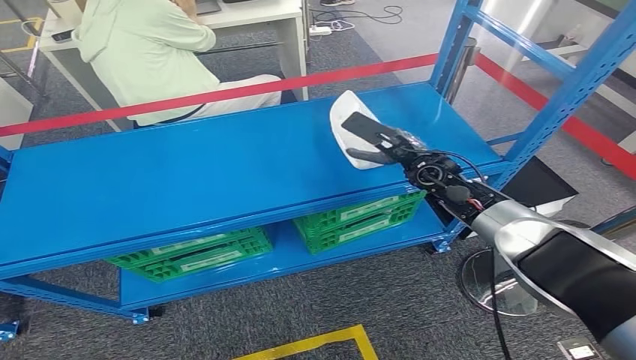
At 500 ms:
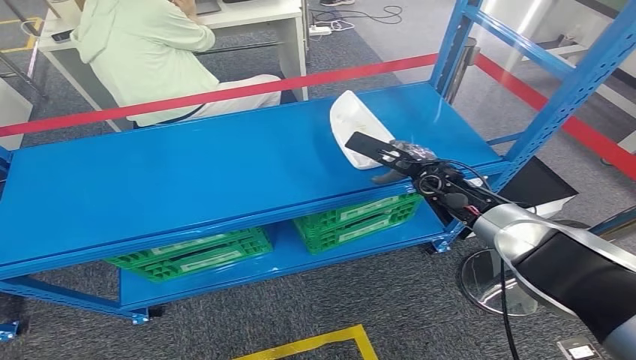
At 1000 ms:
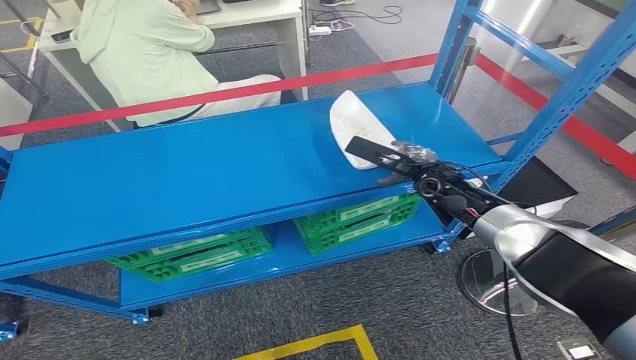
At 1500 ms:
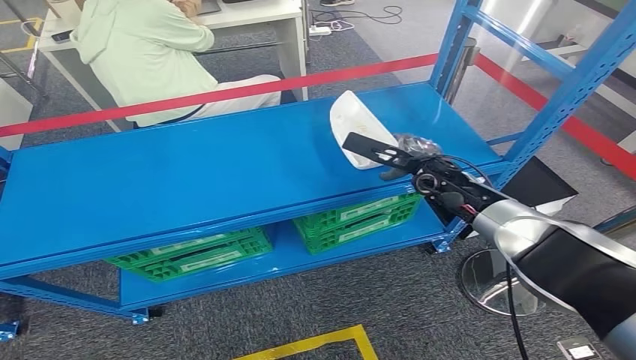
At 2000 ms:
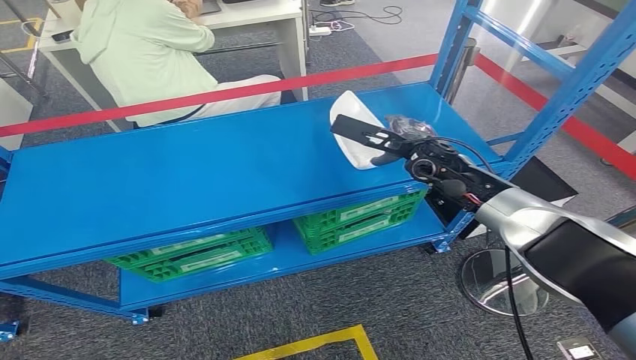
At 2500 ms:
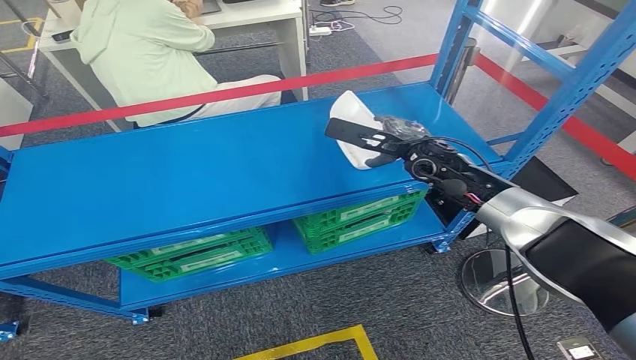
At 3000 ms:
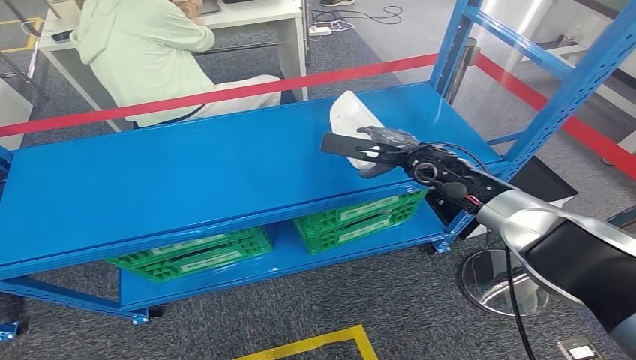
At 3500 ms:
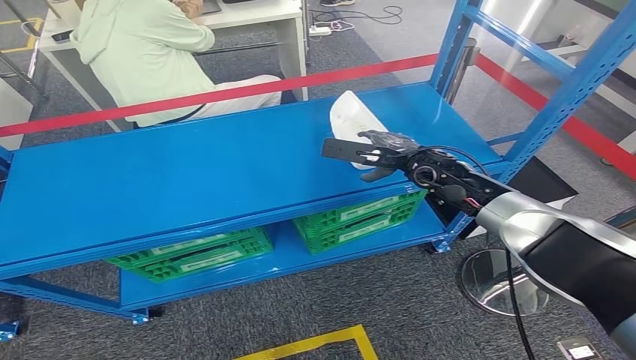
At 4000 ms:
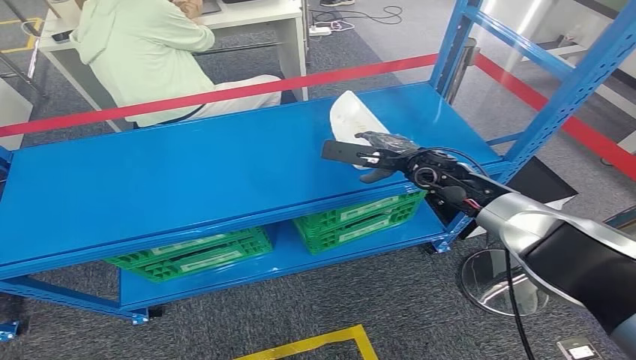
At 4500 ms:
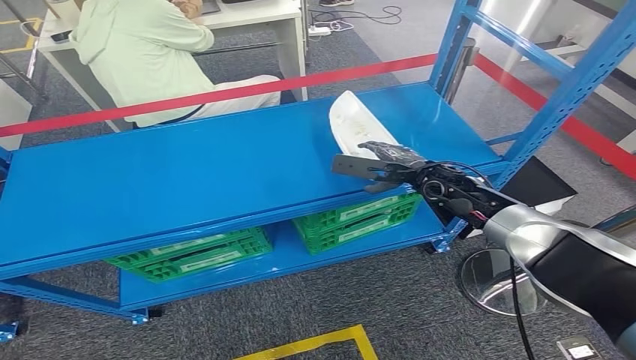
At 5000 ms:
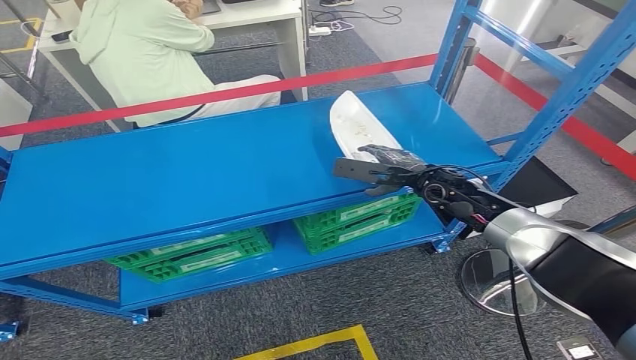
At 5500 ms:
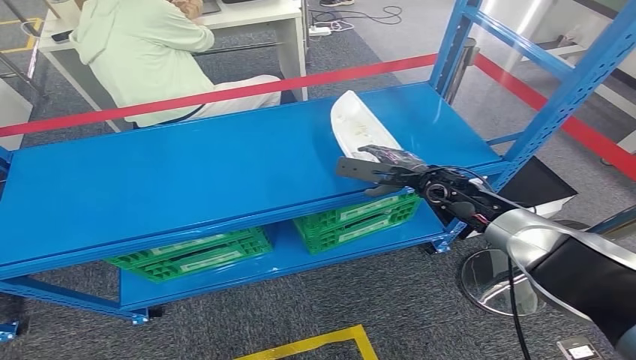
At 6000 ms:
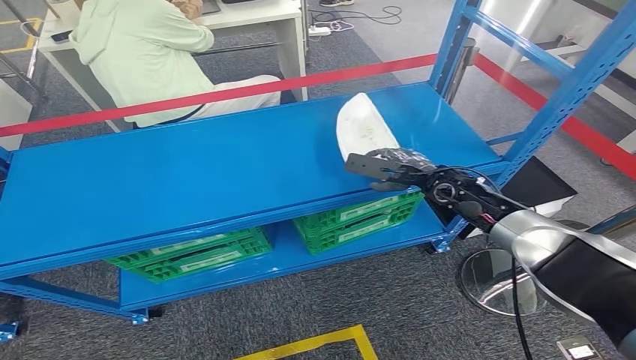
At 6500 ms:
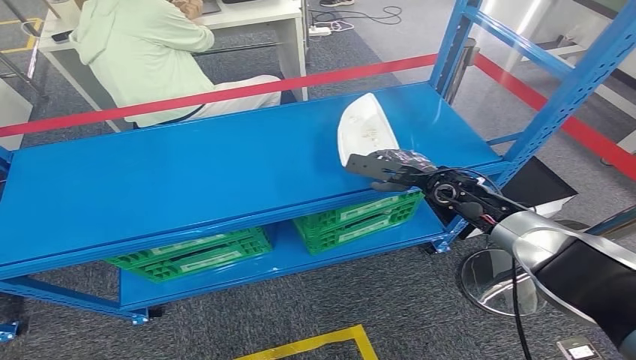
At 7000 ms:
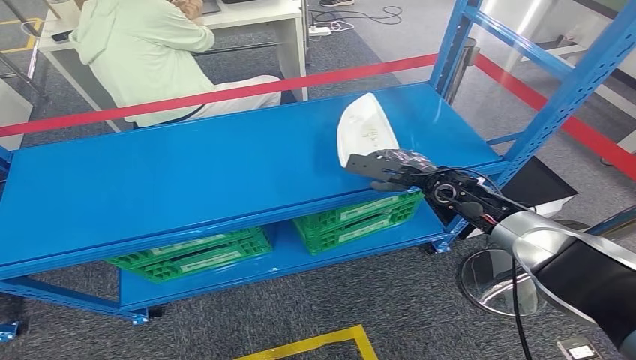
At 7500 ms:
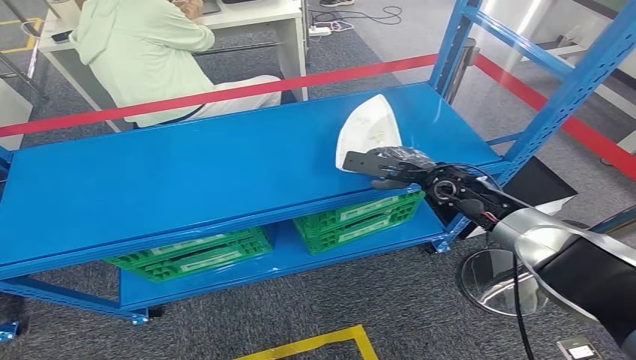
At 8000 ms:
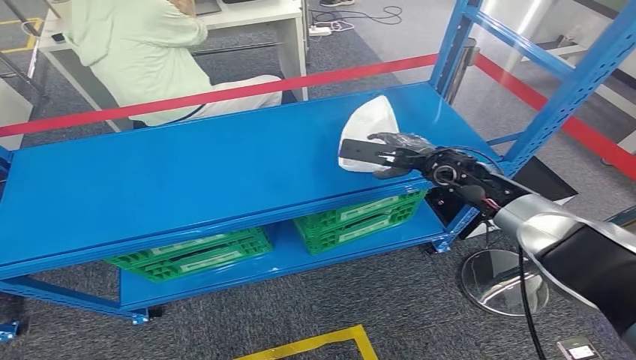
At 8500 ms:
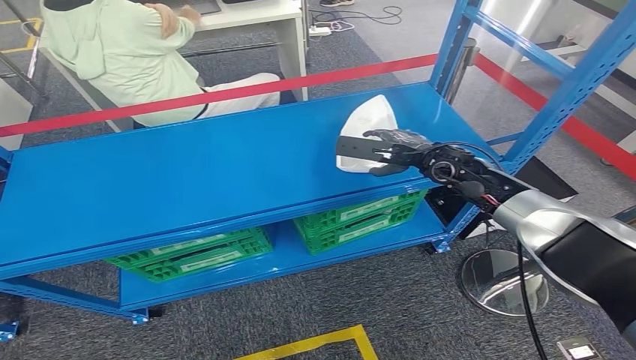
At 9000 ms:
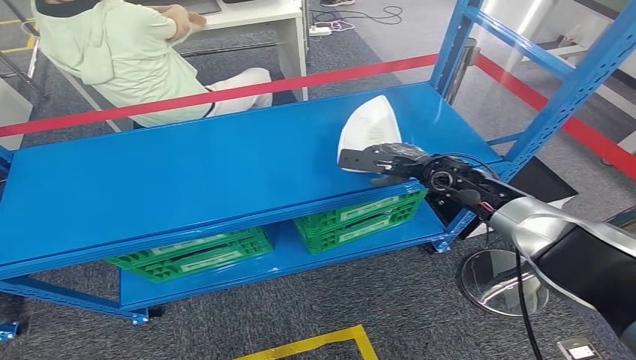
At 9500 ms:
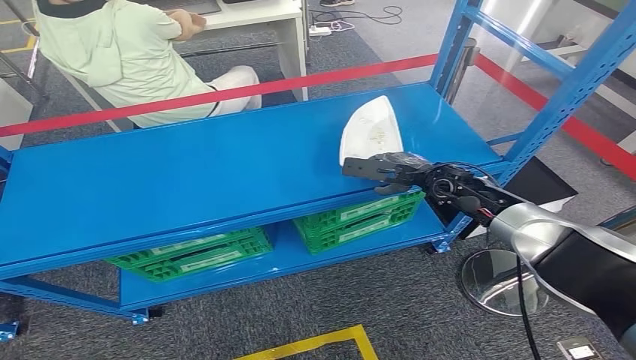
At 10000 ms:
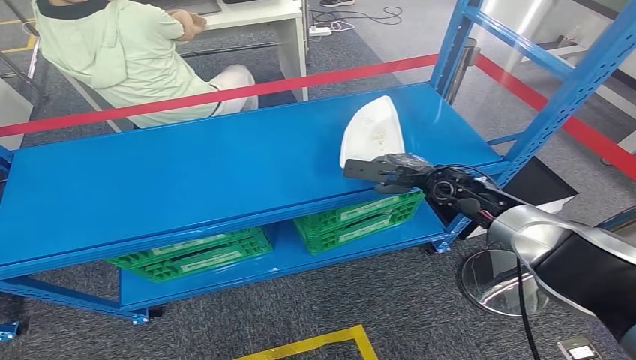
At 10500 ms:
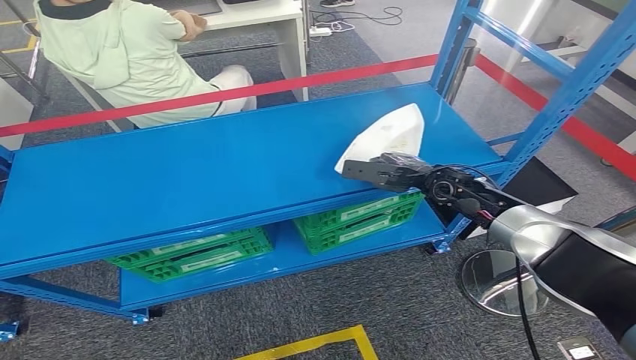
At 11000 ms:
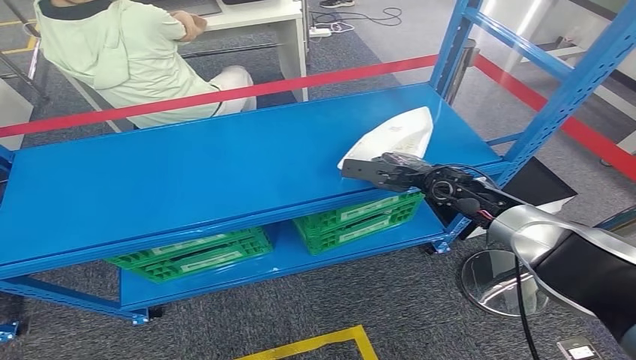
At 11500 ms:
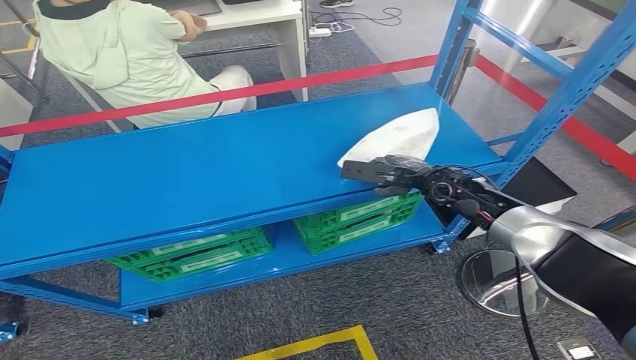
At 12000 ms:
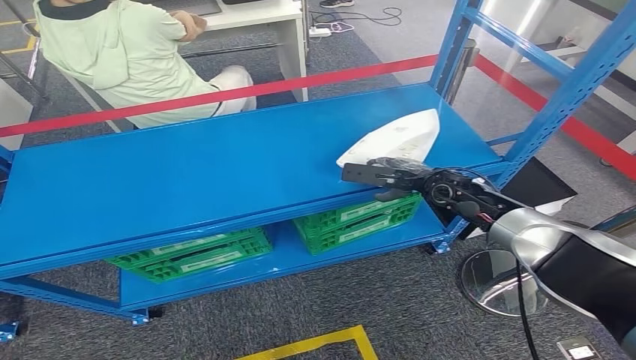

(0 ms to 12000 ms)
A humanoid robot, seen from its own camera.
2000 ms - 4000 ms: The hands move only a little.
4000 ms - 6000 ms: The right hand ends up roughly 5 cm from where it was.
6000 ms - 10000 ms: The hands move only a little.
10000 ms - 12000 ms: Both hands stay about where they are.

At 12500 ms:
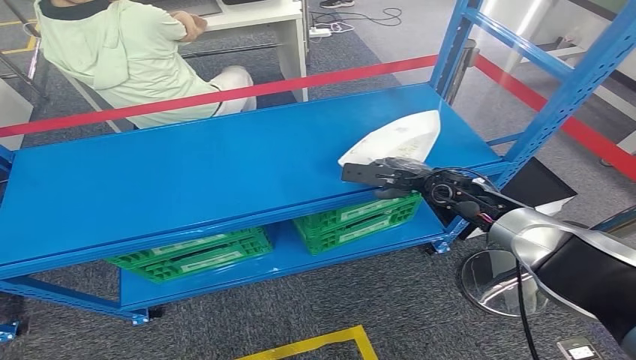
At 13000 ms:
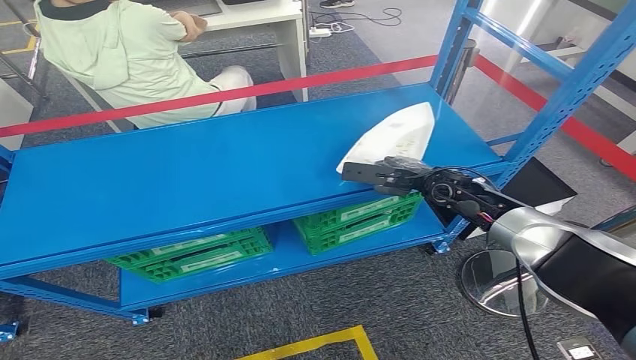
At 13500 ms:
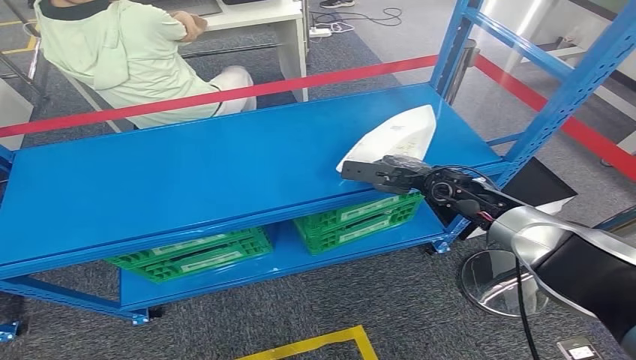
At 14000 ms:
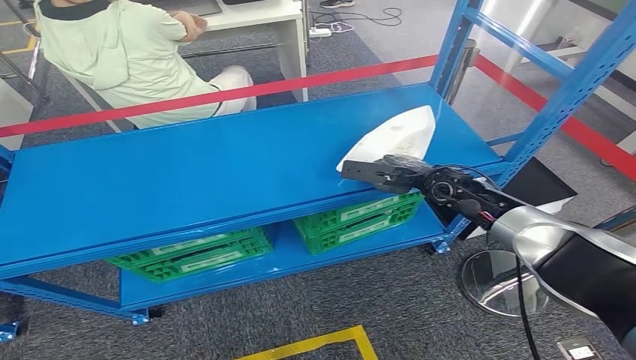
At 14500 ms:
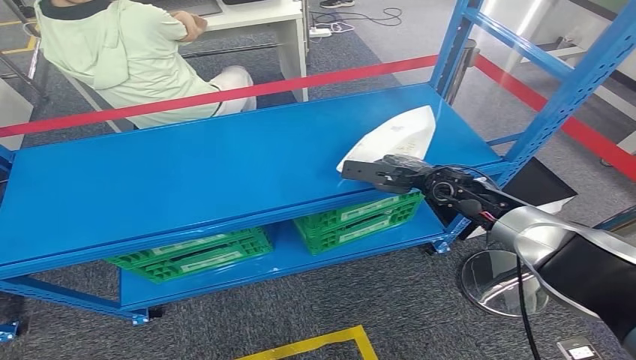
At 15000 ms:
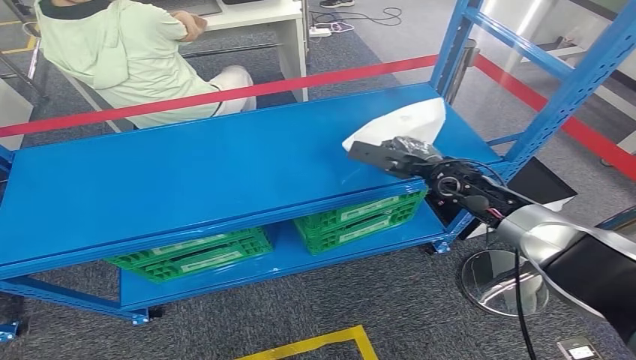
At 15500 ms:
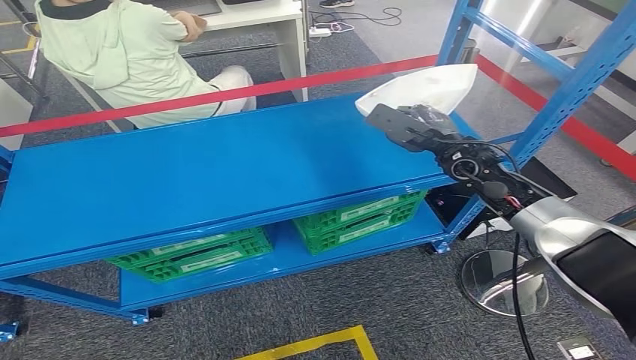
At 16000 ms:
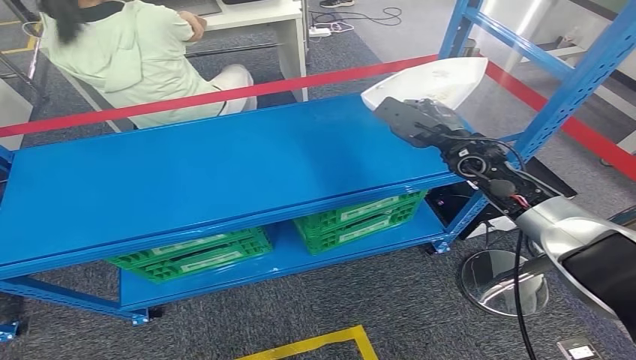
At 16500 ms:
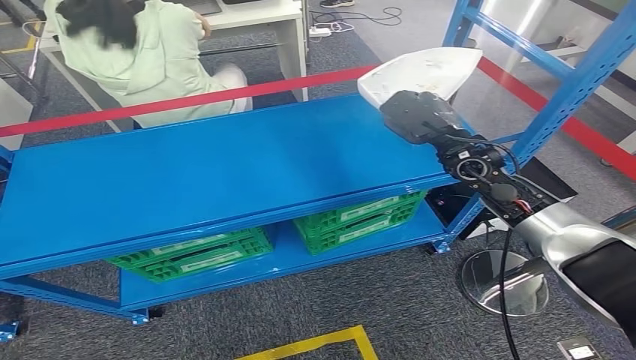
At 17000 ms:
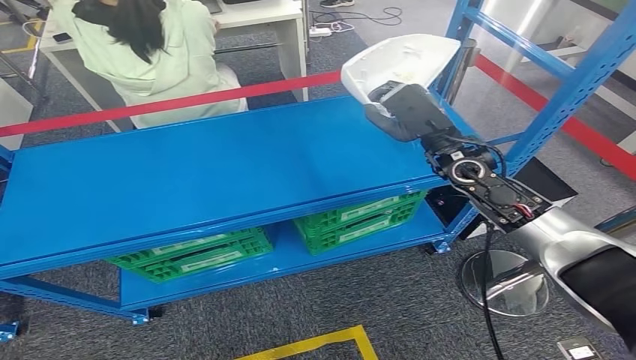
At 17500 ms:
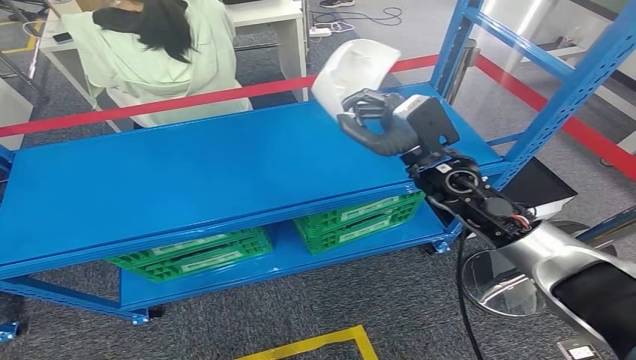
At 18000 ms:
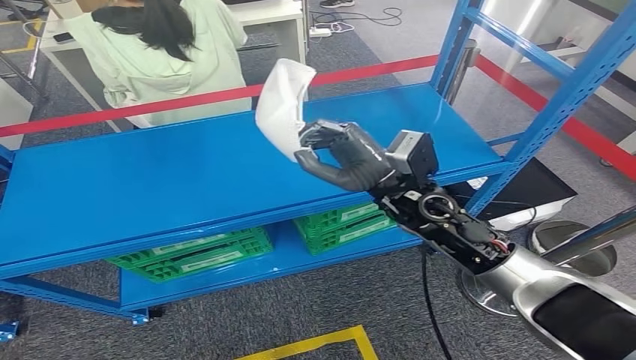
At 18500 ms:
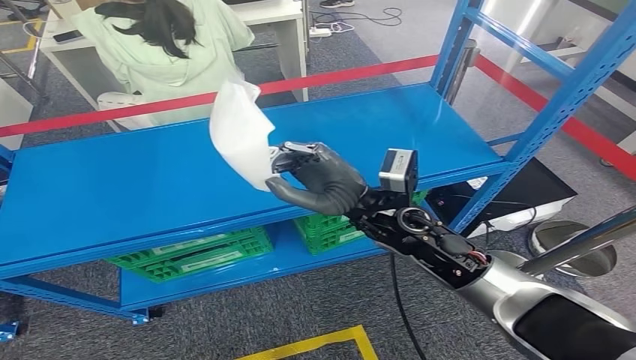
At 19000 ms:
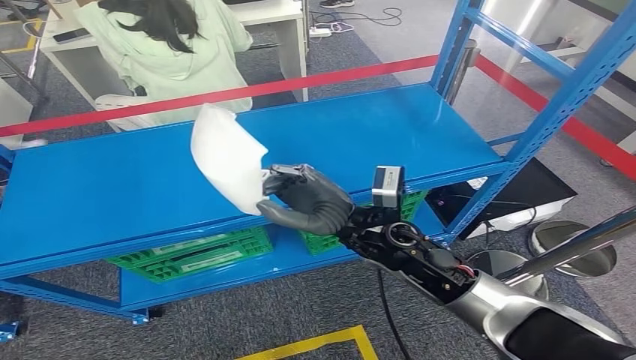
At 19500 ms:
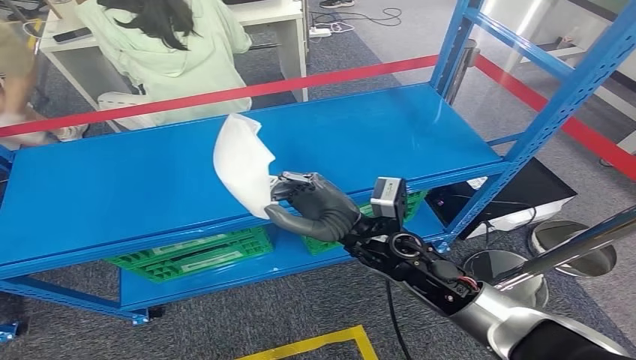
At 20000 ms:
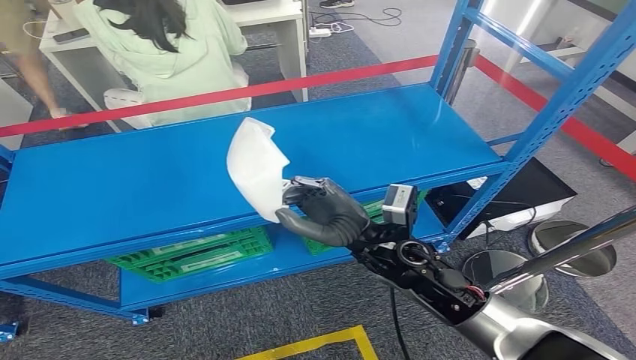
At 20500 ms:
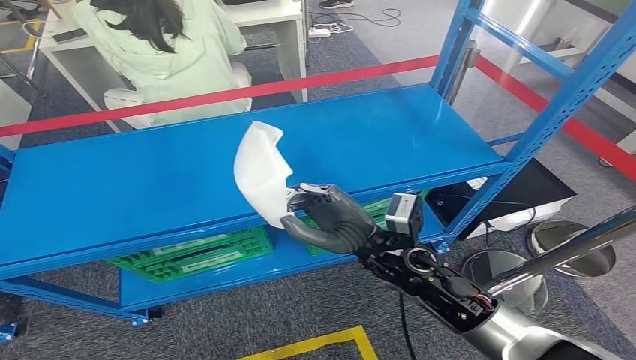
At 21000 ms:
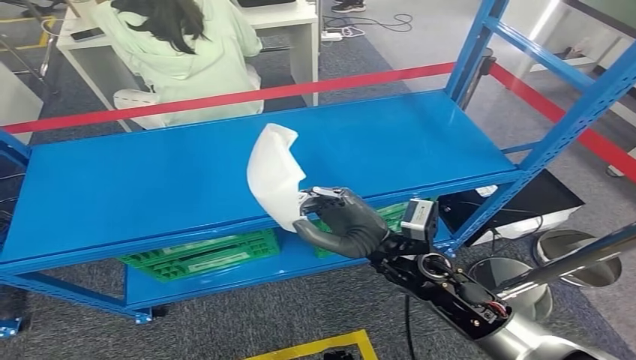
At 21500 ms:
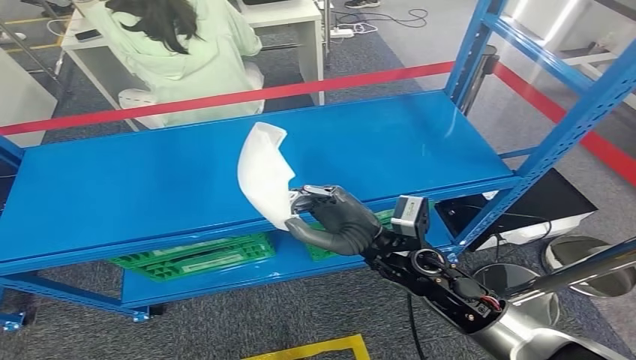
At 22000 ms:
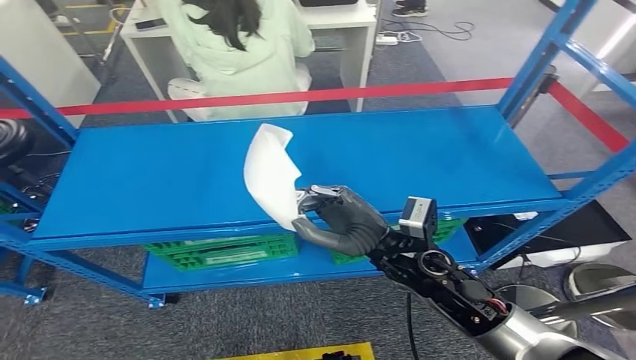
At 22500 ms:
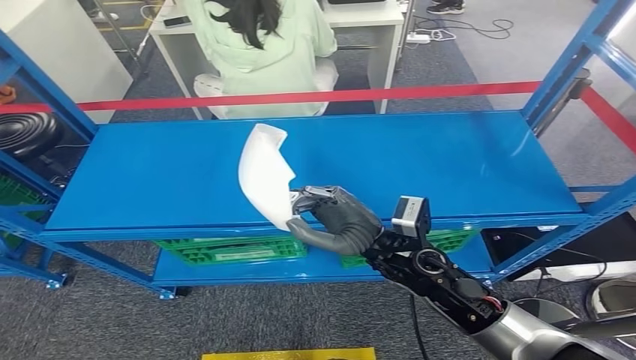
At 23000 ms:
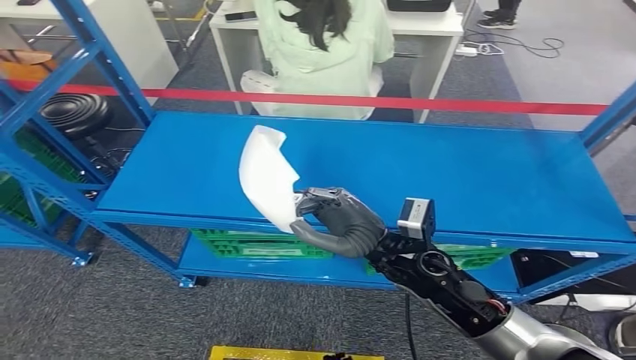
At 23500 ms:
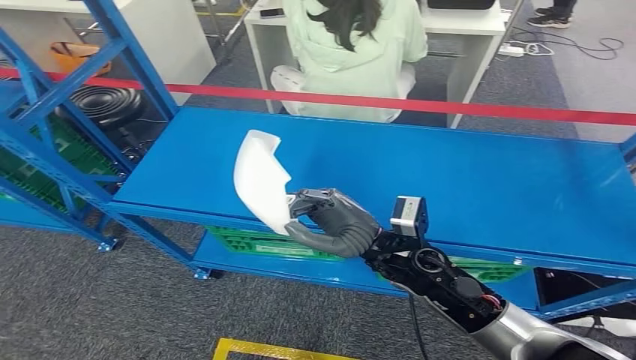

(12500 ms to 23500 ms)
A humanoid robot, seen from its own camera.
Step, 12500 ms - 23000 ms: Pick up the small parts from the shelf.
12500 ms - 14500 ms: Both hands stay about where they are.
14500 ms - 16000 ms: The right hand moves upward, approximately 5 cm.
